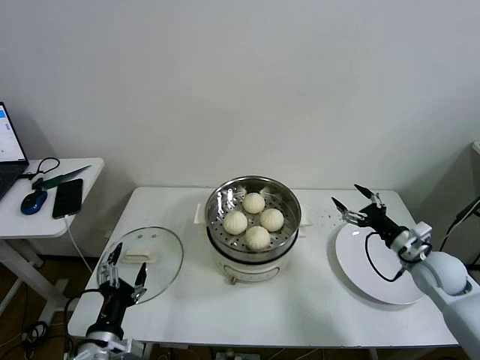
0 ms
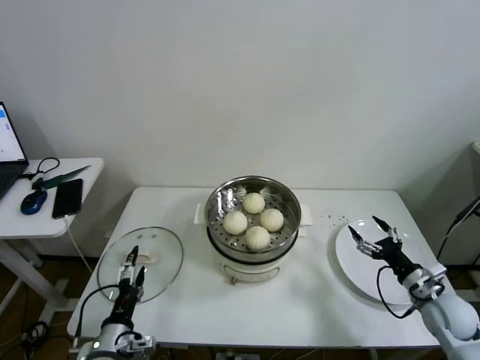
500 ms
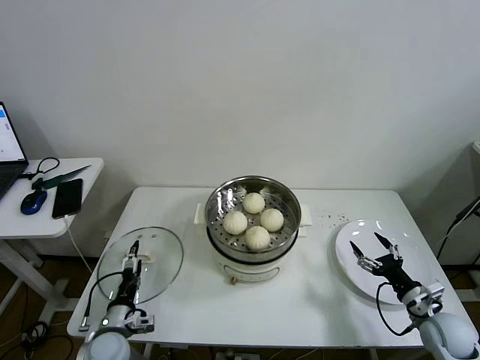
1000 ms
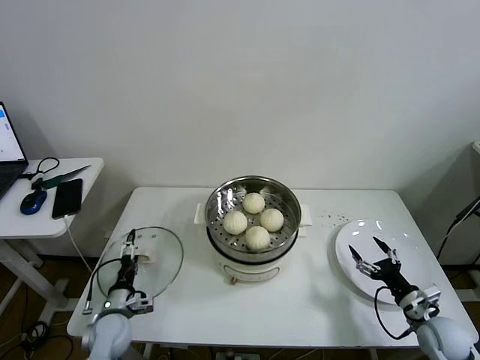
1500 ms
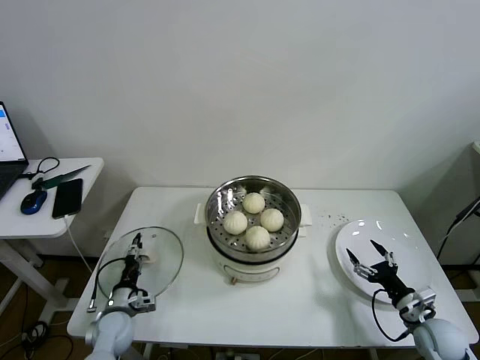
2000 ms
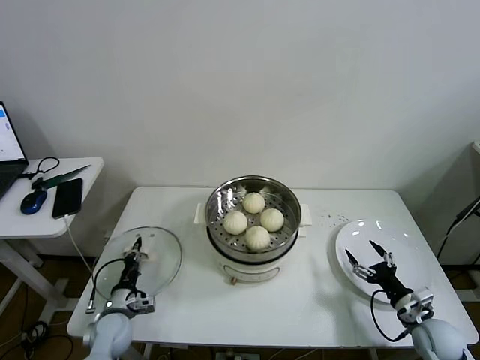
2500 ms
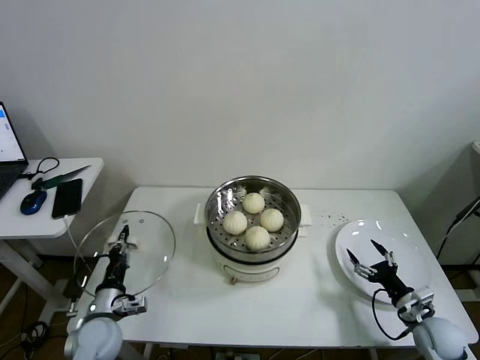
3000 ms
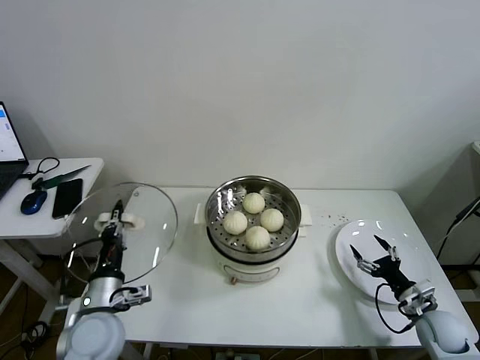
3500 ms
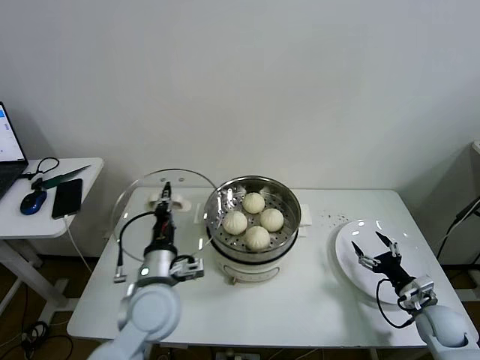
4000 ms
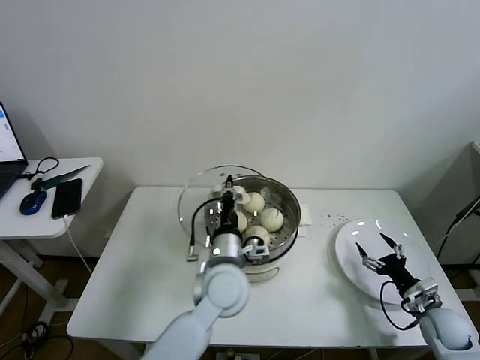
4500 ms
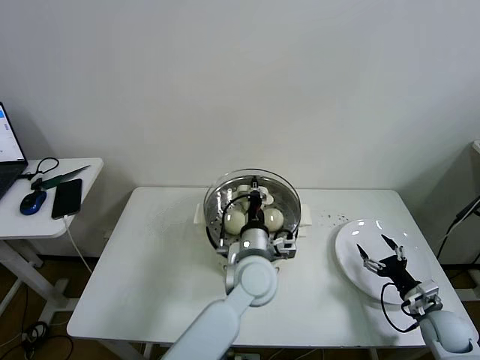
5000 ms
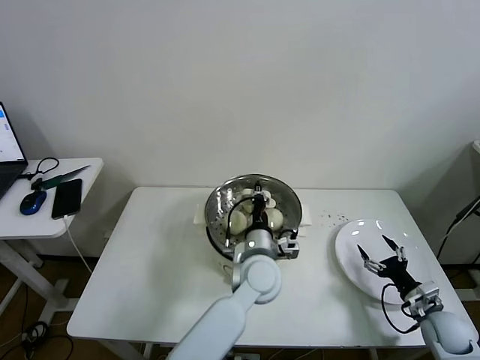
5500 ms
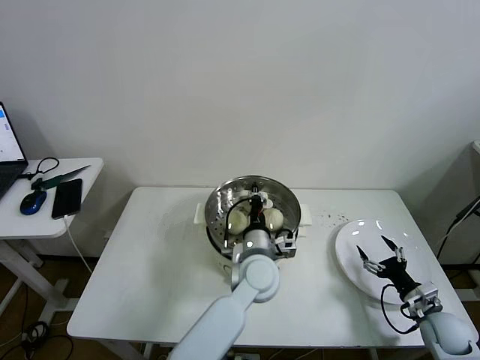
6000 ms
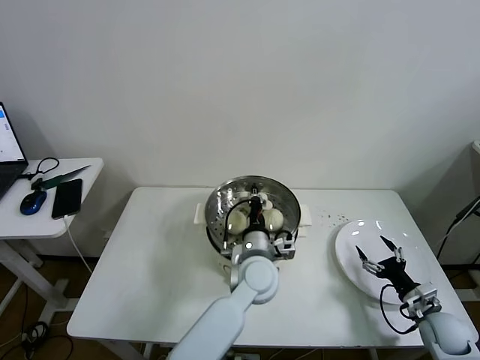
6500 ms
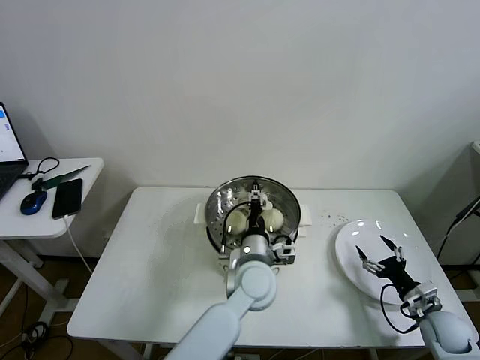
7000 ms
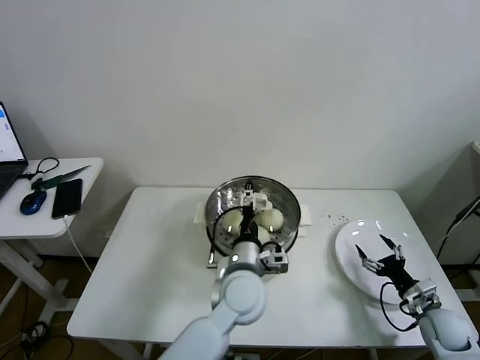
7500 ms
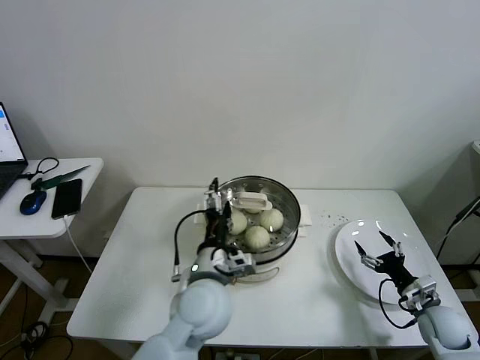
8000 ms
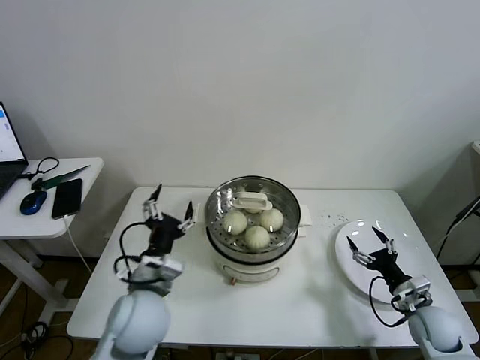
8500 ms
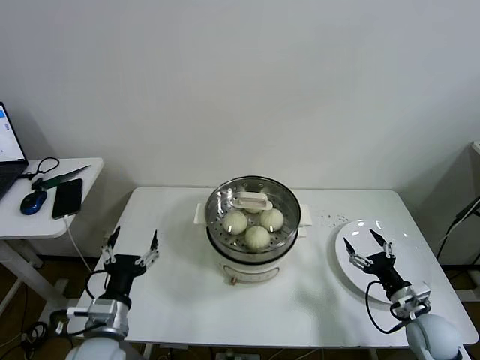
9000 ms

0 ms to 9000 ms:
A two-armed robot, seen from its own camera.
Task of the whole recording: take steamed baozi put them in steamer then cover it.
Step, 0 ms to 2000 ms: Grasp the pot lid with left gripper.
Step, 2500 ms to 7000 ms: Place the pot lid on the steamer with left gripper.
0 ms to 2000 ms: The right gripper heads downward and backward, covering roughly 15 cm, while the left gripper heads downward and forward, covering roughly 20 cm, and closes up.
2000 ms to 4500 ms: The left gripper shifts roughly 35 cm to the right and upward, and closes.
4500 ms to 7000 ms: The left gripper moves to the right, some 5 cm, and opens up.
7000 ms to 9000 ms: The left gripper moves to the left and backward, approximately 30 cm, and opens up; the right gripper is displaced to the left by approximately 5 cm.
